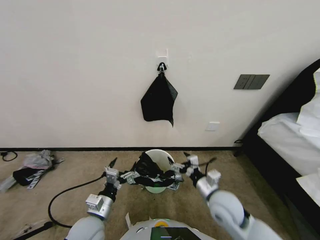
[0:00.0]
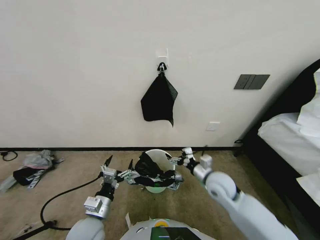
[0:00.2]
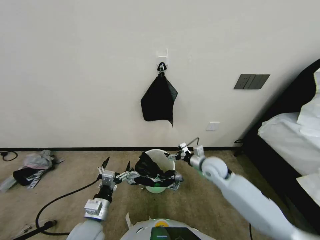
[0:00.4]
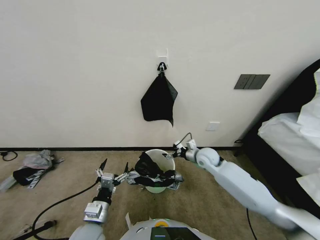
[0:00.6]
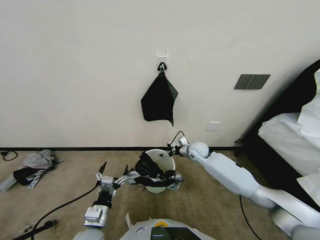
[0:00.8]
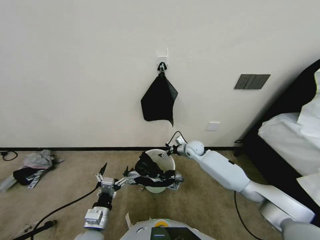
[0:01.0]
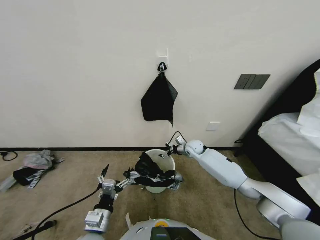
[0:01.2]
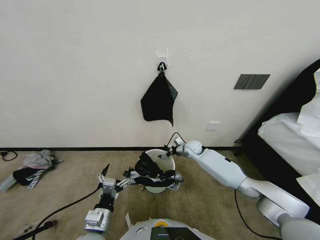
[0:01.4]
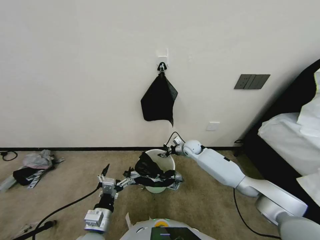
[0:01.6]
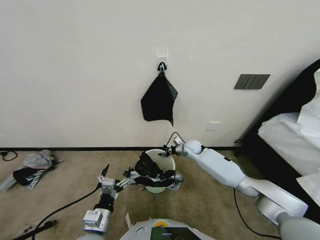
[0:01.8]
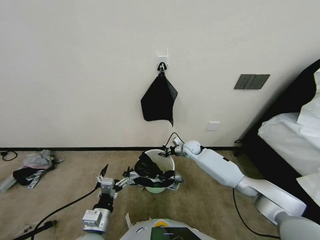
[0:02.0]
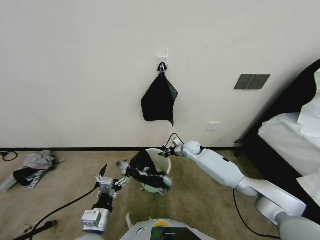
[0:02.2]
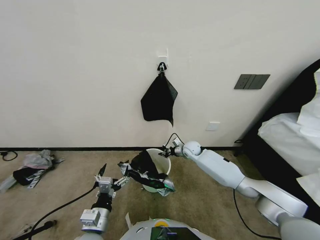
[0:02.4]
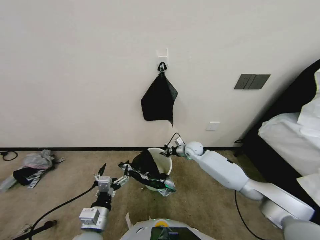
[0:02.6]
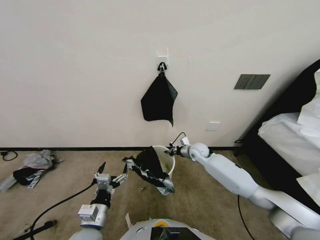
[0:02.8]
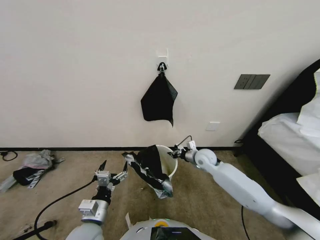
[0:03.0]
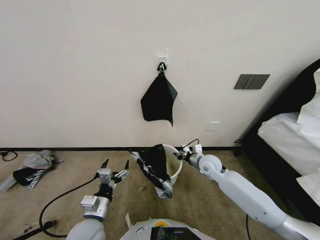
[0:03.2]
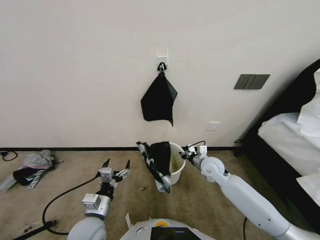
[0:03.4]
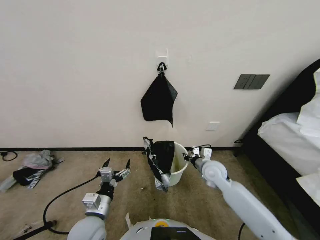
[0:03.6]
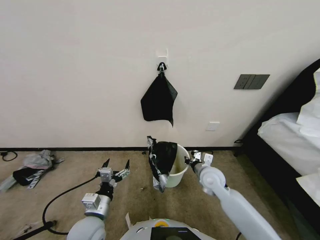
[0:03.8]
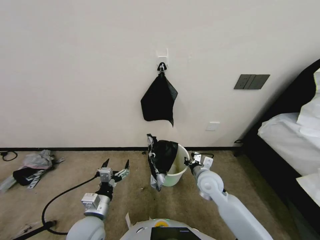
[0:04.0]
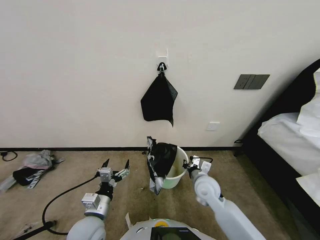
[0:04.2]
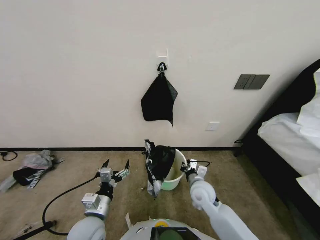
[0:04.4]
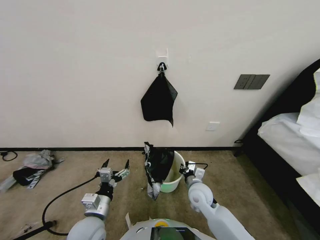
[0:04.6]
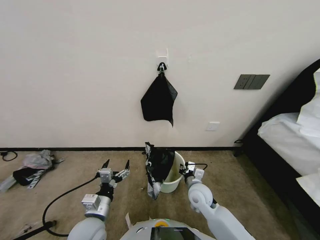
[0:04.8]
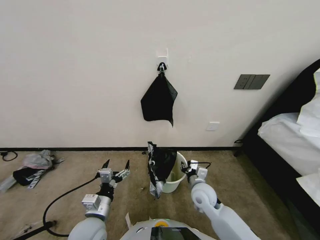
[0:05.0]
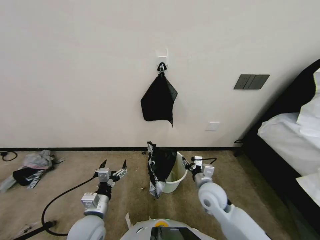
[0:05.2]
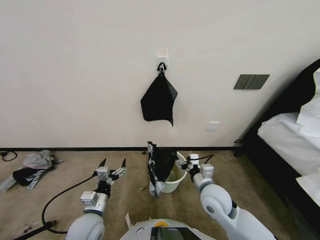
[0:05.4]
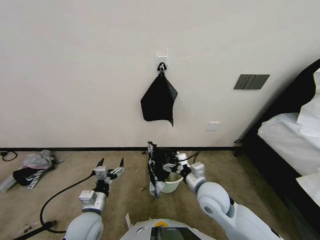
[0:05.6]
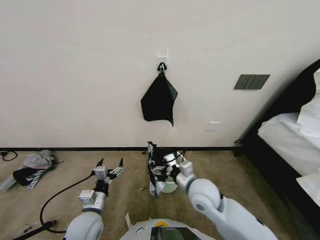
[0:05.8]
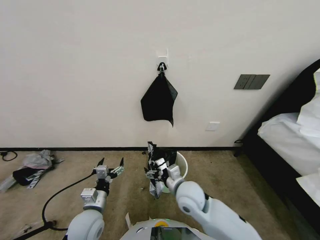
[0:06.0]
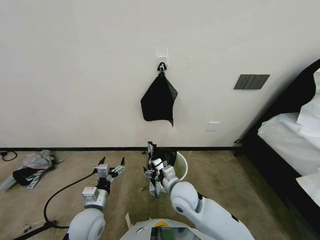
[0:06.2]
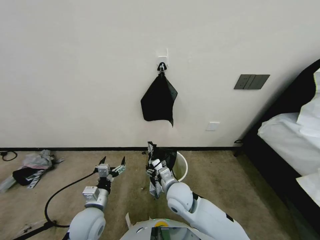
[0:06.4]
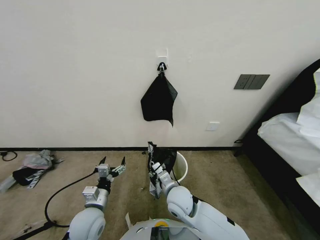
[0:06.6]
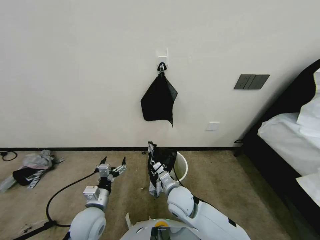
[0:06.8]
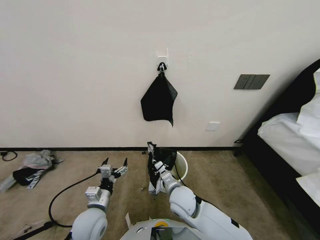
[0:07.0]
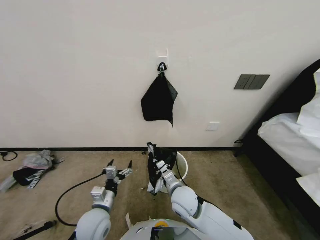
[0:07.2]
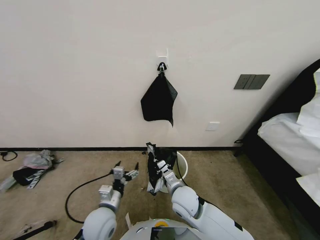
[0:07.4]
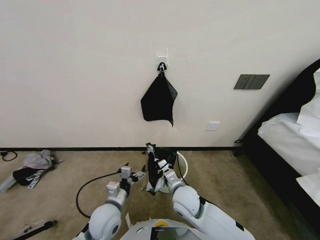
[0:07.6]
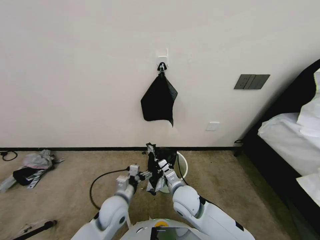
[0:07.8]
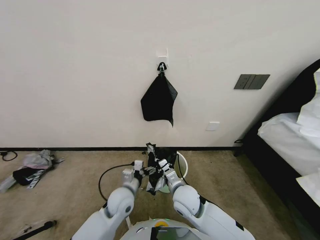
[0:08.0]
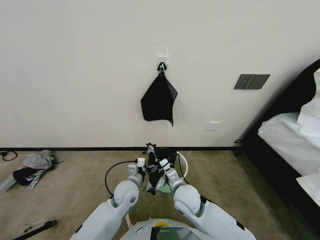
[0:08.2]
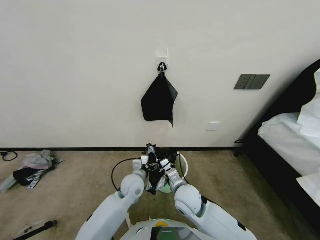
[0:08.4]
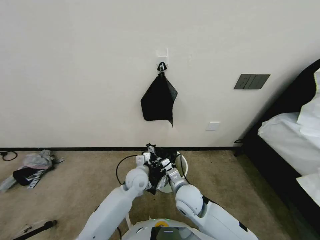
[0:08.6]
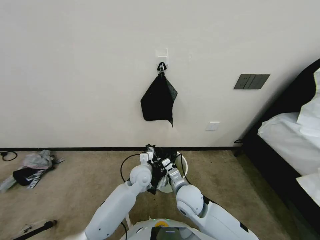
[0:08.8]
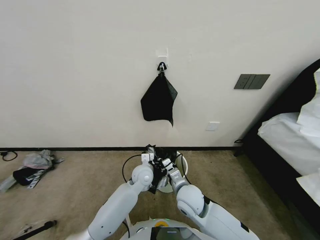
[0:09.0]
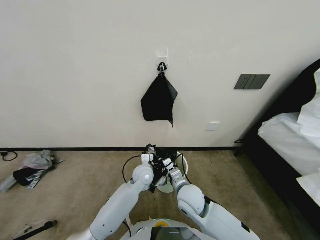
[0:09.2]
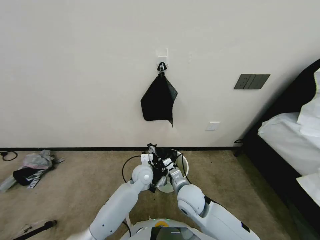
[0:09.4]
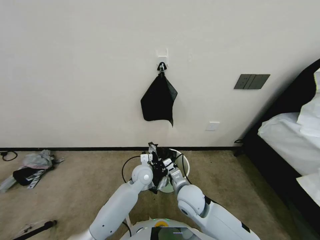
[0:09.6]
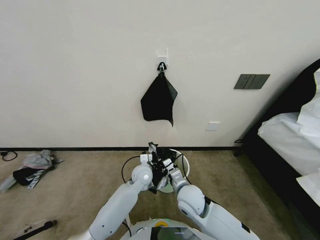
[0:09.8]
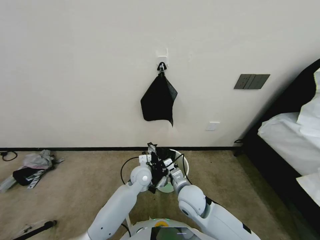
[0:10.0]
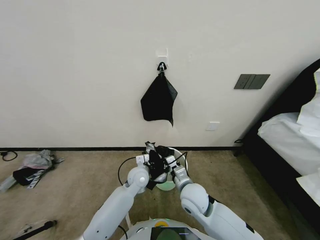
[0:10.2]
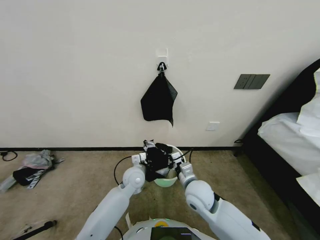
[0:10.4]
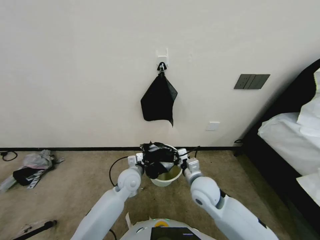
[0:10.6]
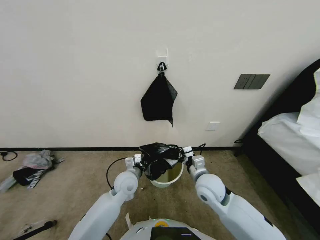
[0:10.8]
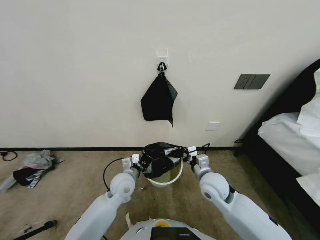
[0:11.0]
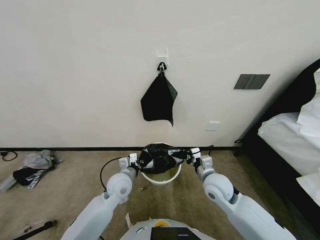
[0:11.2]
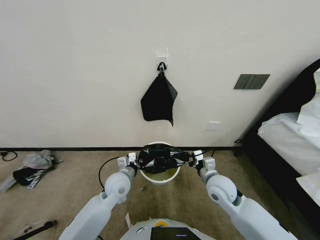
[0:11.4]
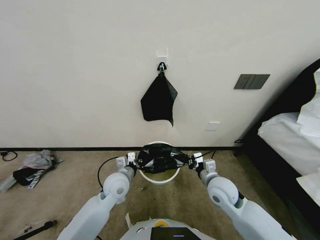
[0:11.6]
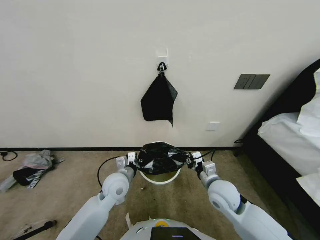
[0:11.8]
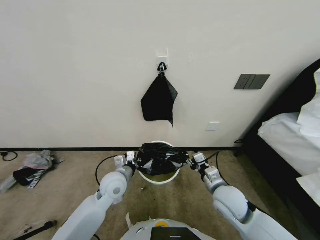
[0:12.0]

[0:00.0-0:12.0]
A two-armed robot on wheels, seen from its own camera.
Task of the whole recording: Place a trash bag onto the trash bin.
0:00.0 to 0:01.6: The right gripper shifts approximately 35 cm forward.
0:01.6 to 0:03.0: The right gripper shifts roughly 5 cm backward, and closes.
0:03.0 to 0:04.4: The right gripper travels backward by some 15 cm.
0:04.4 to 0:06.0: The right gripper goes some 10 cm upward and to the left, and opens up.
0:06.0 to 0:07.6: The right gripper travels downward by about 5 cm, and closes, while the left gripper is displaced to the right by some 5 cm.
0:07.6 to 0:09.0: The left gripper is displaced forward and to the right by about 20 cm.
0:09.0 to 0:10.4: The left gripper closes its fingers.
0:10.4 to 0:12.0: The left gripper shifts approximately 10 cm to the left, upward and backward; the right gripper shifts some 10 cm to the right.

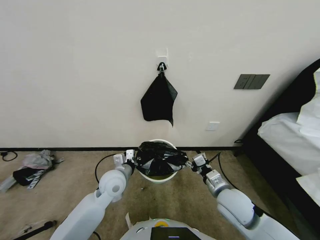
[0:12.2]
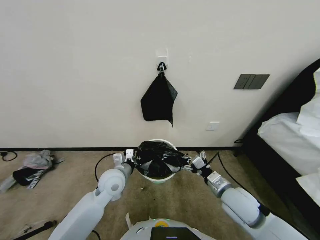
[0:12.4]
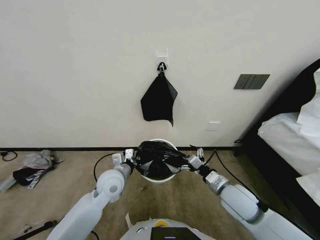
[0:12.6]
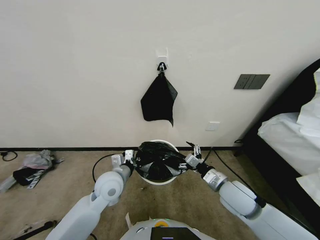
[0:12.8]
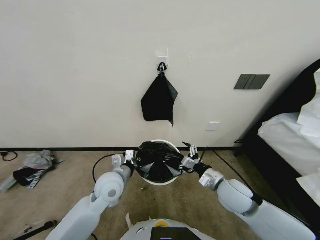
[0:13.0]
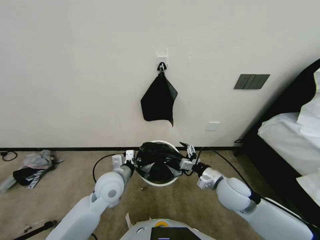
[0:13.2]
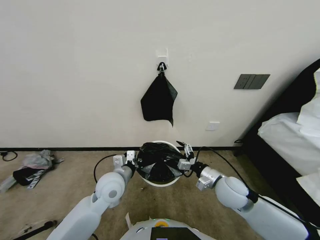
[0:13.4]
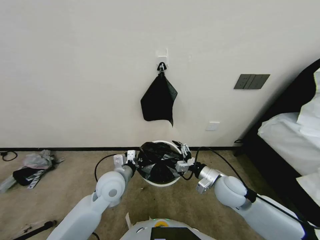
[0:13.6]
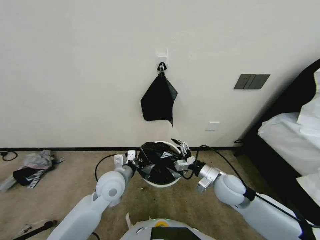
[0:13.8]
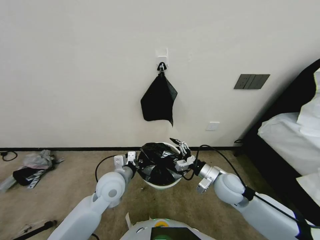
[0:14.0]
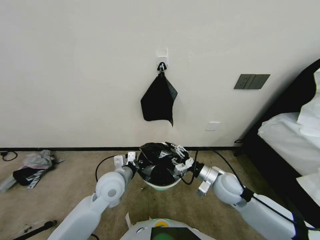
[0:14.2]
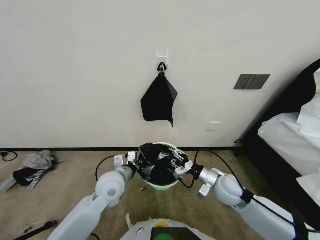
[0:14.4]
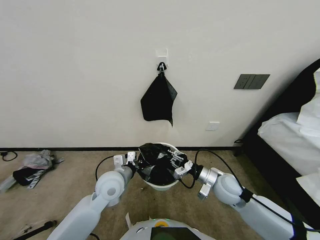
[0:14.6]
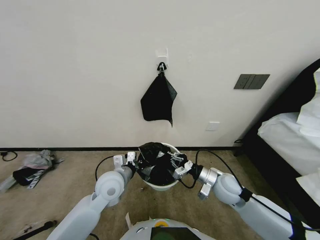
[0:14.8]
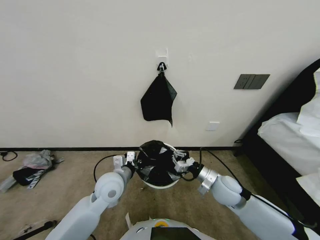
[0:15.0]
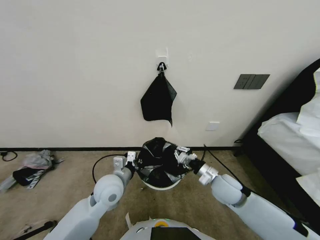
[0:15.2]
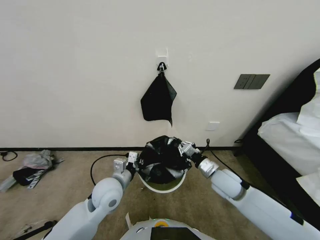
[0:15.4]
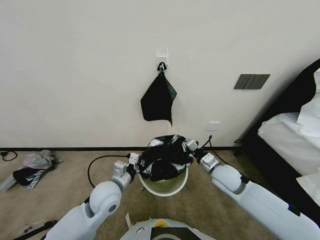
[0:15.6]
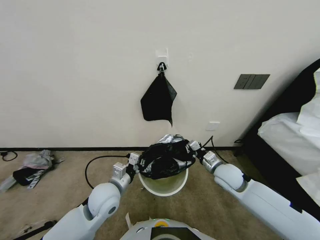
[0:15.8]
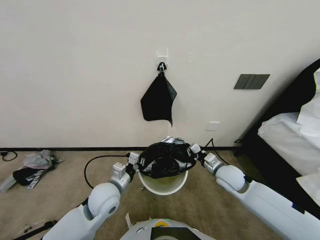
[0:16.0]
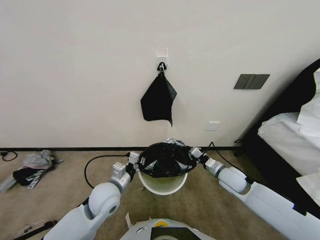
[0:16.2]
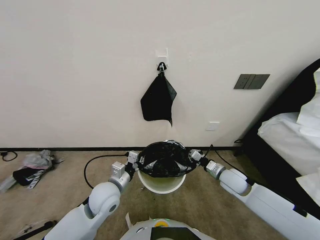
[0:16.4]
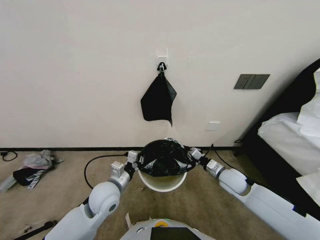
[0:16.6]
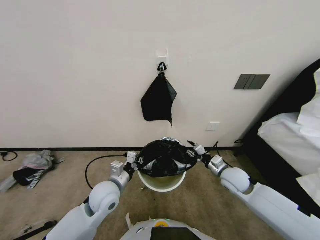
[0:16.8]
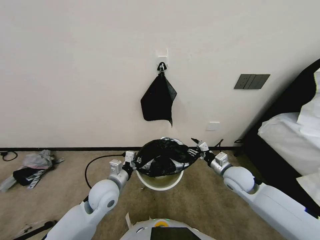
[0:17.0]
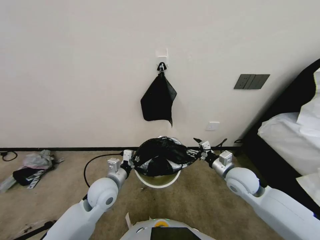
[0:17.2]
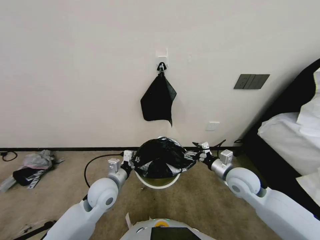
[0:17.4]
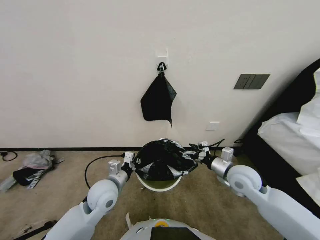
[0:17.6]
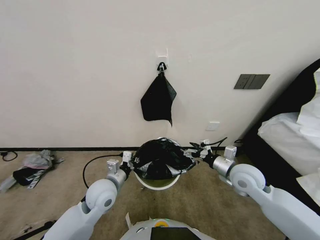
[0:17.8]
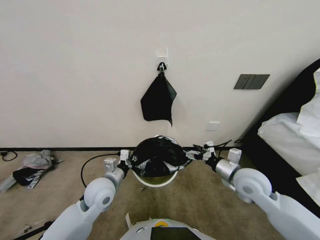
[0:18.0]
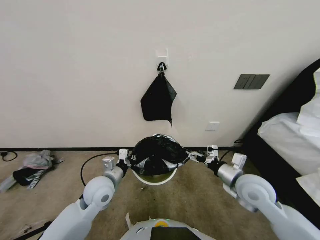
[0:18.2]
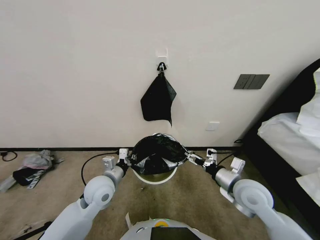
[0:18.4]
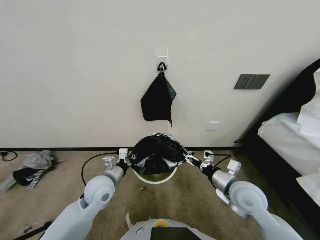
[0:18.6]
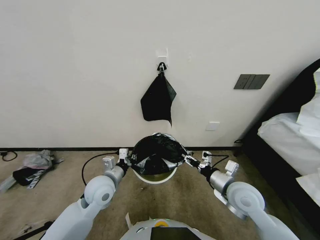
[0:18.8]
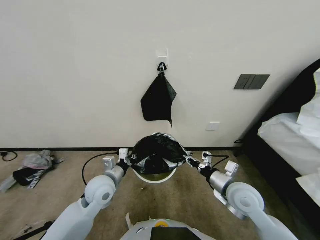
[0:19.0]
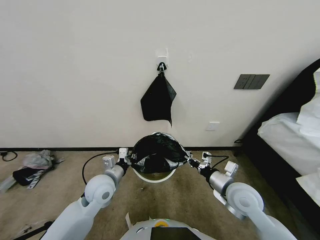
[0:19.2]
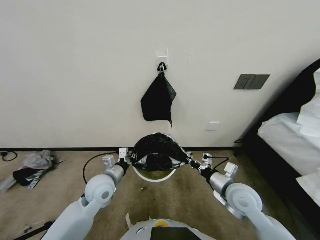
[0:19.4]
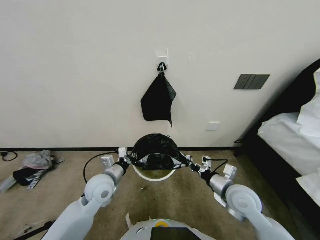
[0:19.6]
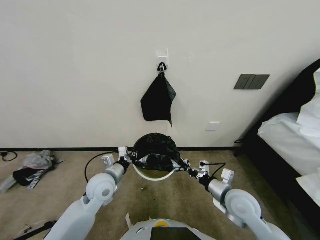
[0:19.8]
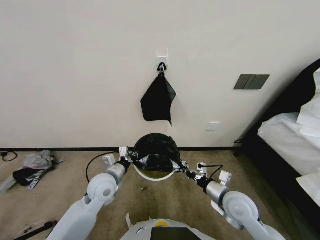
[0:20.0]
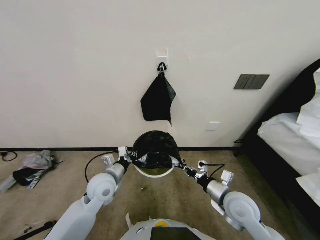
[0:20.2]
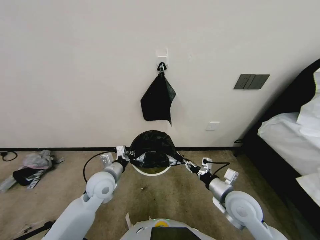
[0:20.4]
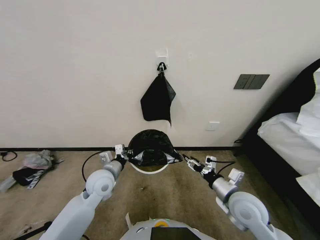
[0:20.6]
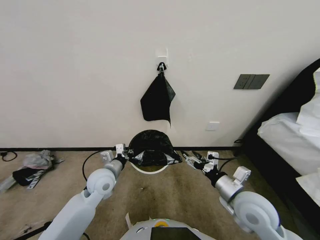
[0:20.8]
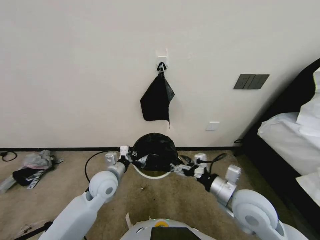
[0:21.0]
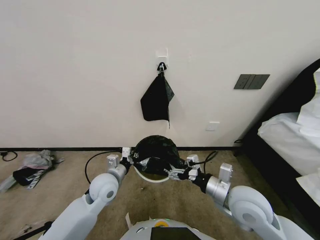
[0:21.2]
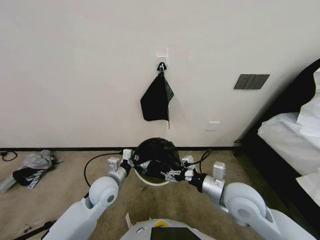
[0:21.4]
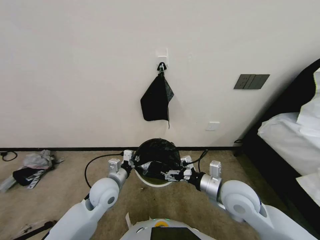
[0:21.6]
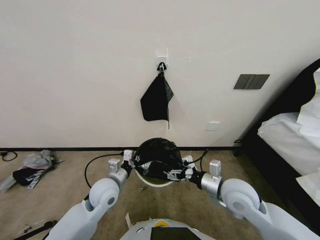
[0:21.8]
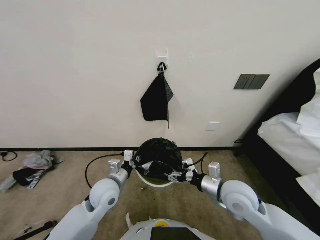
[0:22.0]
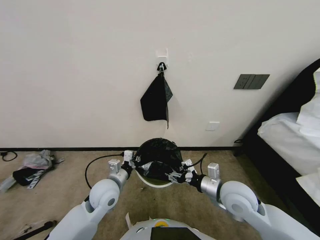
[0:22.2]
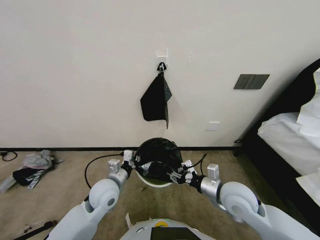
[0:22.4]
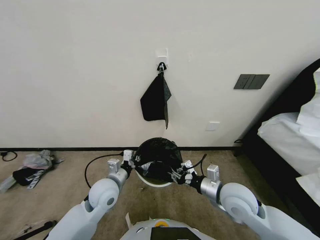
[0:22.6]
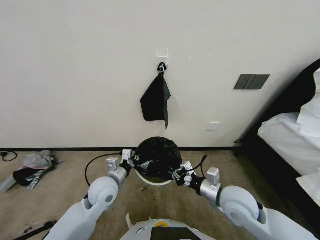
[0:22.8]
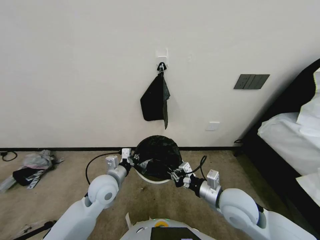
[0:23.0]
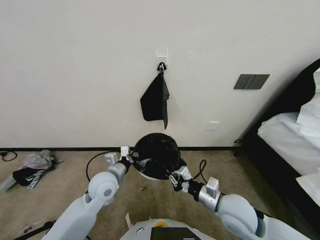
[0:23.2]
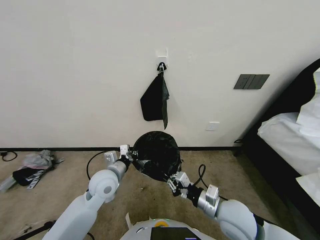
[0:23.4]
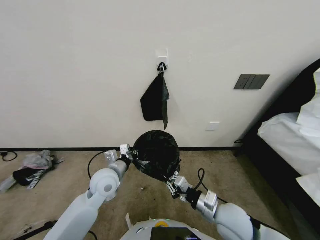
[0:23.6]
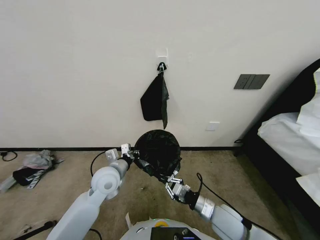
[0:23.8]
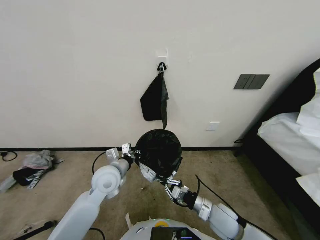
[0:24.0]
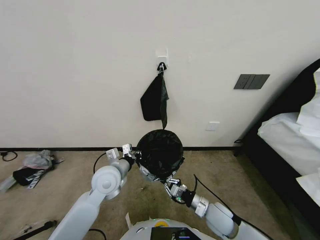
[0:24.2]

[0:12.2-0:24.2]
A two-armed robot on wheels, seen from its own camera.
Task of the whole recording: Place a trash bag onto the trash bin.
0:12.2 to 0:13.8: The right gripper opens up.
0:13.8 to 0:15.2: The right gripper closes up.
0:15.2 to 0:16.6: The right gripper travels to the right by about 5 cm.
0:16.6 to 0:18.2: The right gripper heads upward and backward, covering about 10 cm, and opens up.
0:18.2 to 0:19.8: The right gripper heads downward, covering about 5 cm, and closes its fingers.
0:19.8 to 0:21.2: The right gripper is displaced upward by about 5 cm, and opens.
0:21.2 to 0:22.6: The right gripper closes.
0:22.6 to 0:24.2: The right gripper travels downward by some 15 cm; the left gripper ends up approximately 5 cm from where it was.
